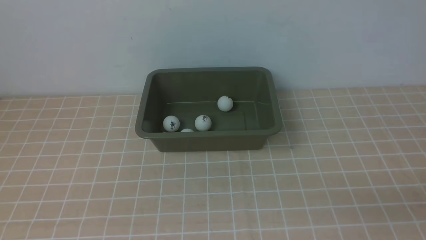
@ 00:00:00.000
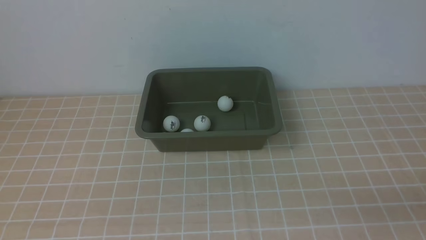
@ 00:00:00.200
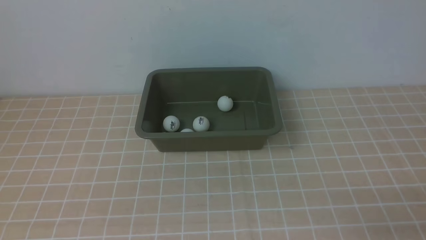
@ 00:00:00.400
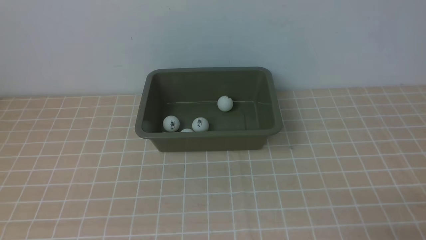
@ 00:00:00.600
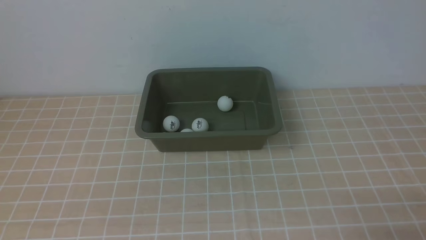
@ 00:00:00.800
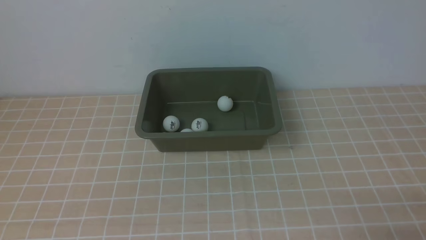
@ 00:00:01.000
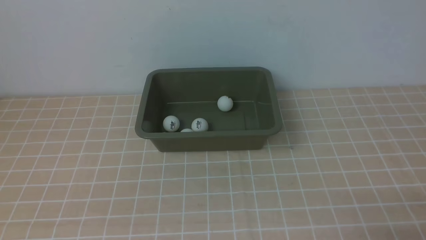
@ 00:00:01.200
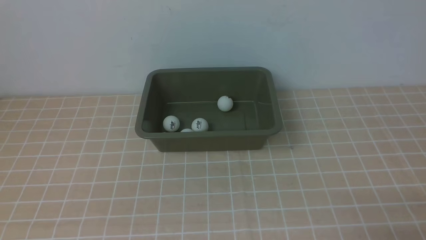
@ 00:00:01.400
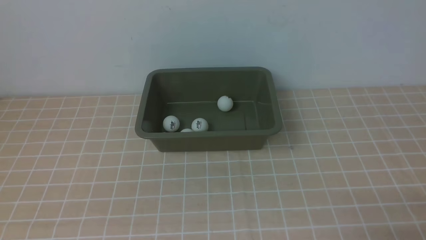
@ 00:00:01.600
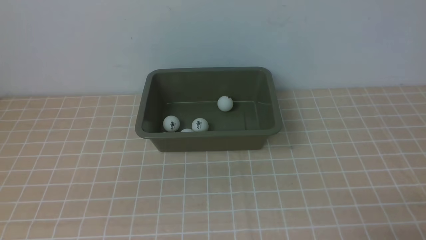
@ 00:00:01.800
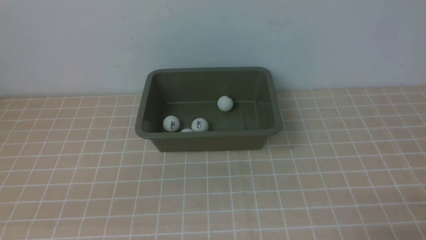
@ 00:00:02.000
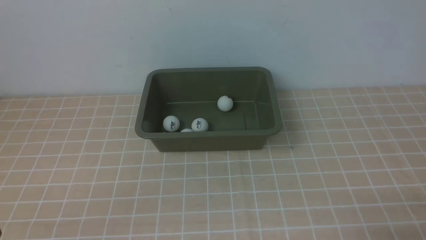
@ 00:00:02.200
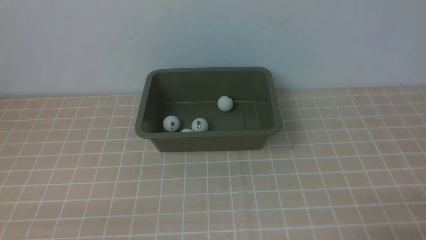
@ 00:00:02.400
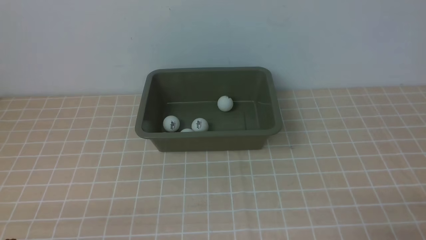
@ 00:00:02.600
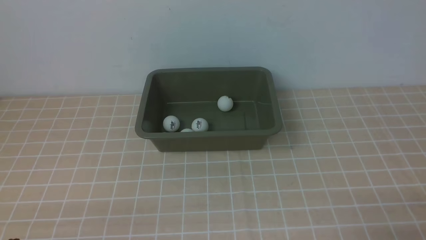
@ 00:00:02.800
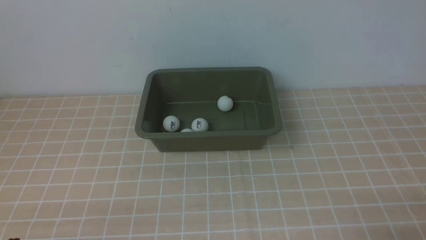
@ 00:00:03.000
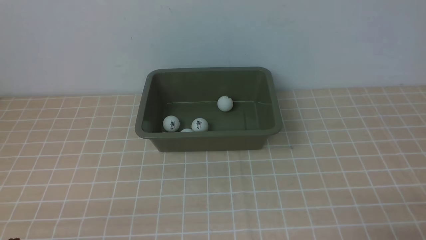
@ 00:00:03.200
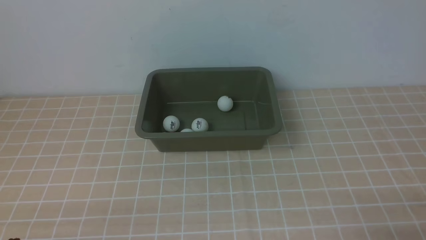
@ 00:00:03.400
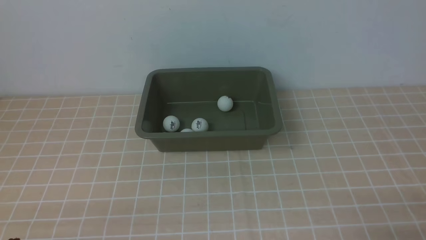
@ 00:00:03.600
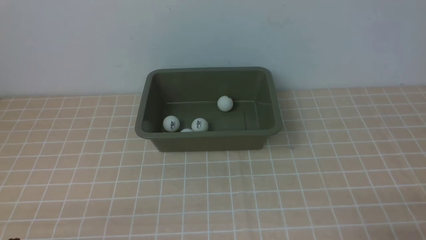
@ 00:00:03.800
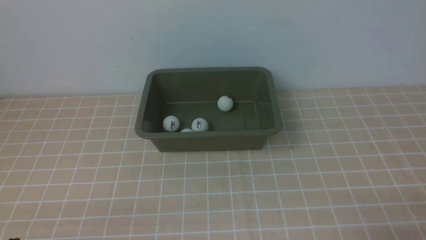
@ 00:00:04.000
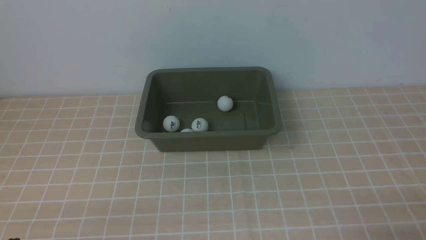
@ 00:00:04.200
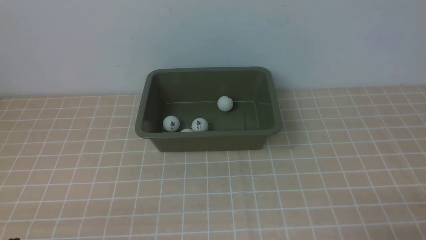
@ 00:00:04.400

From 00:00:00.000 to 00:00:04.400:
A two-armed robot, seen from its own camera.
From 00:00:03.000 to 00:00:04.400: Both grippers stay put.
